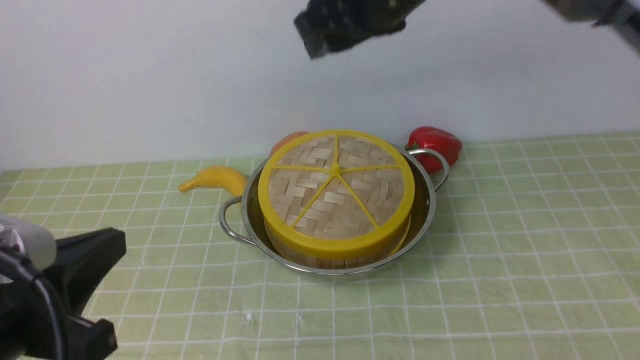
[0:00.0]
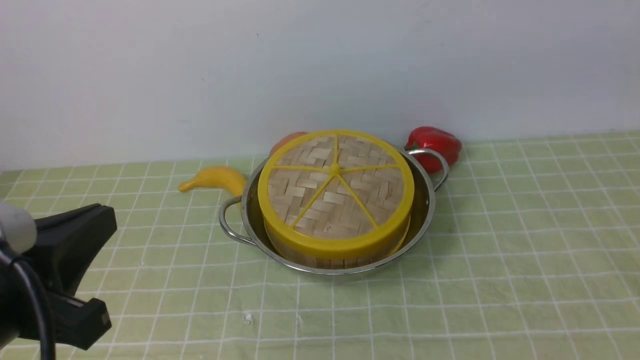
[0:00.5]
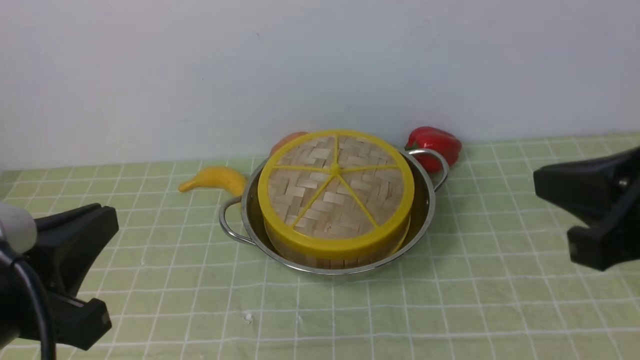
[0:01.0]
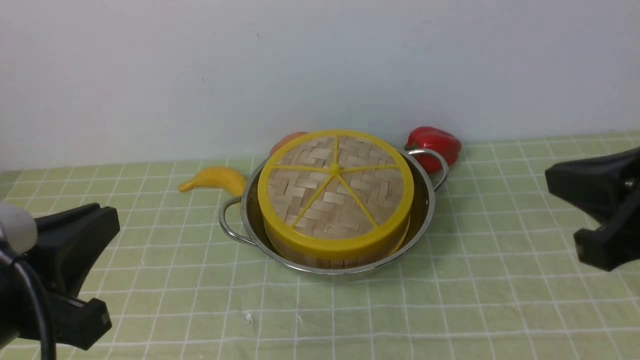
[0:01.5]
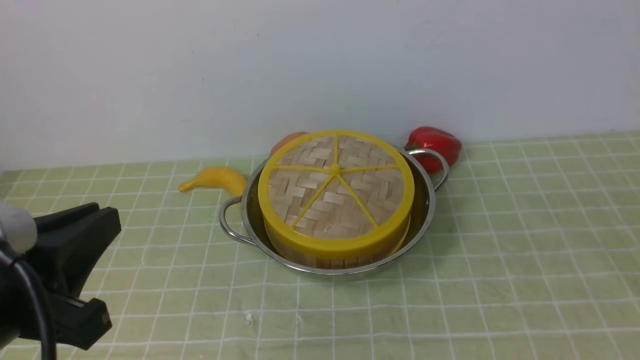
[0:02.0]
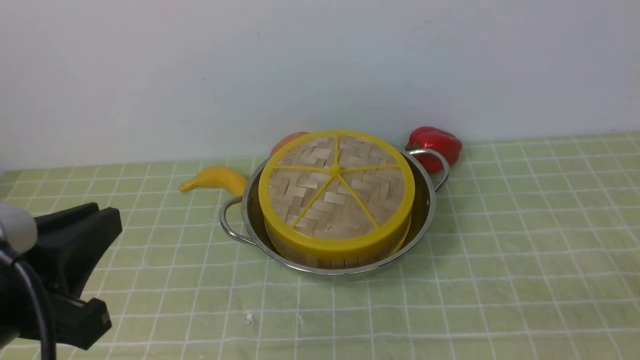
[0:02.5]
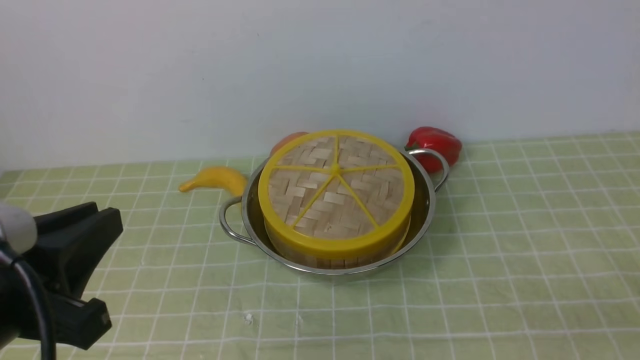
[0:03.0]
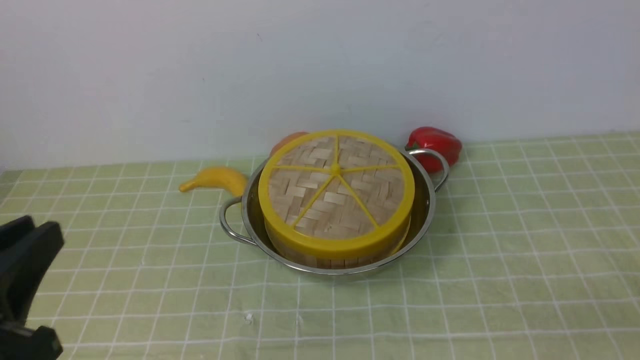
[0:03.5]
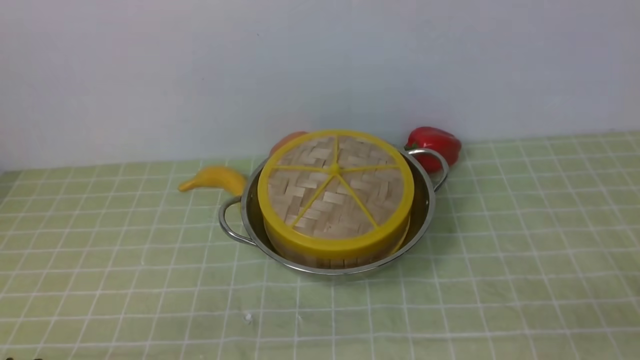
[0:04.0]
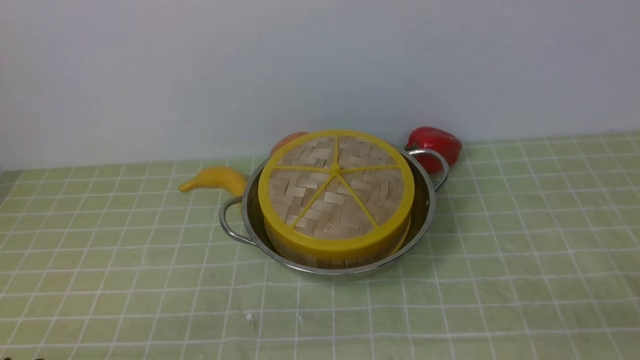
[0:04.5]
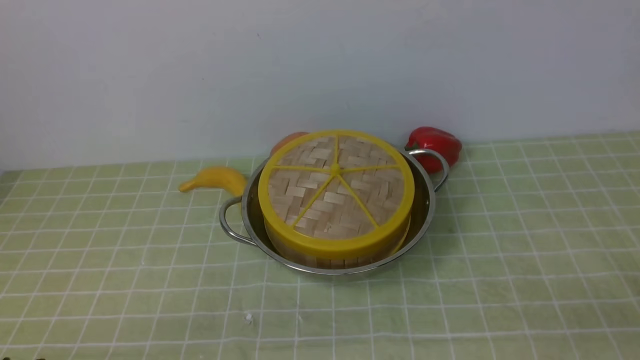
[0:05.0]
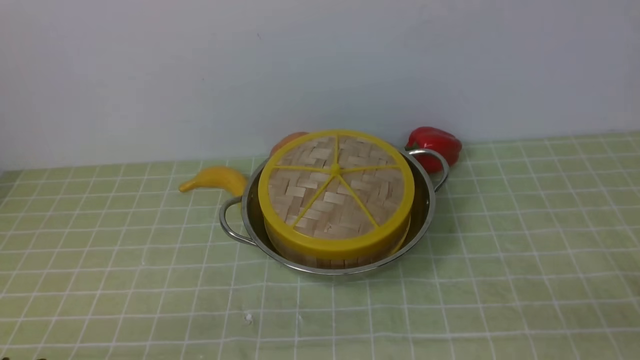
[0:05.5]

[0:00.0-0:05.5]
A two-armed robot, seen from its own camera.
Task of the whole recording: place the steamer in the pot on the green tablecloth, and put the lid on the steamer.
0:00.0 to 0:02.0: The right gripper heads backward, to the right and downward, covering about 40 cm, and closes its fingers.
0:03.5 to 0:05.5: The left gripper travels downward by some 10 cm.
